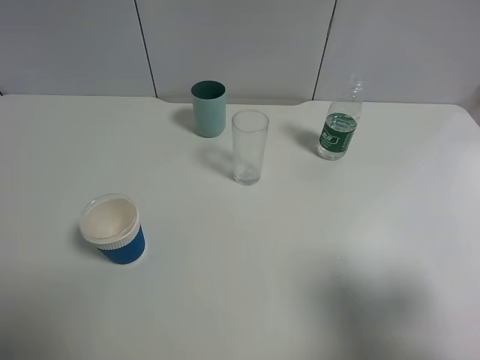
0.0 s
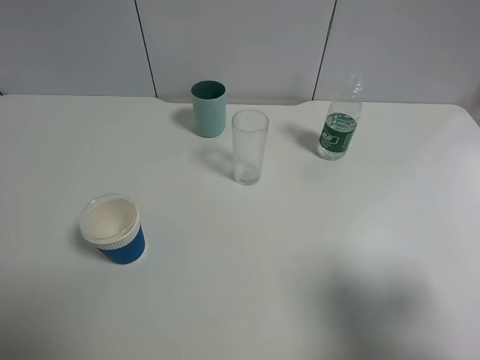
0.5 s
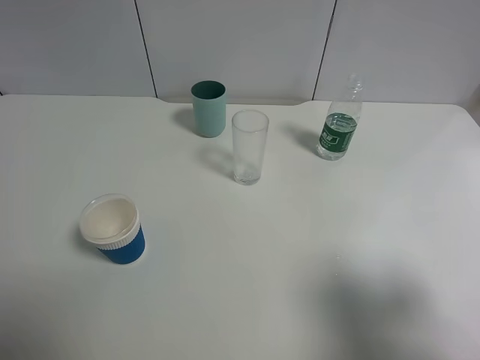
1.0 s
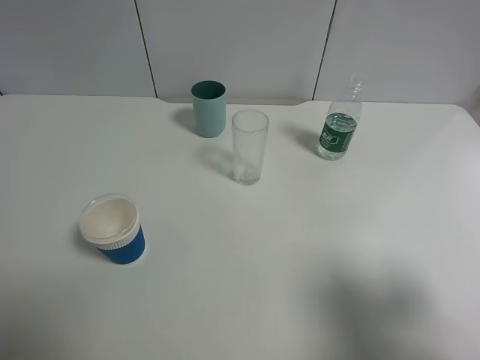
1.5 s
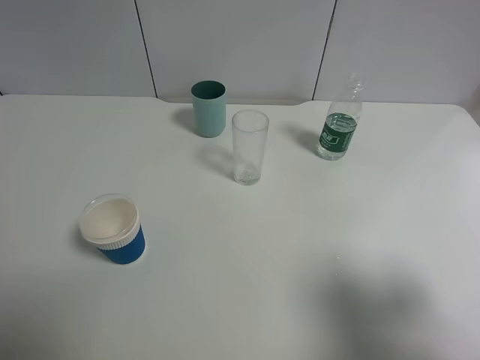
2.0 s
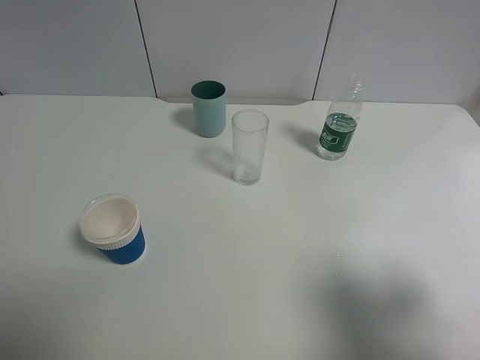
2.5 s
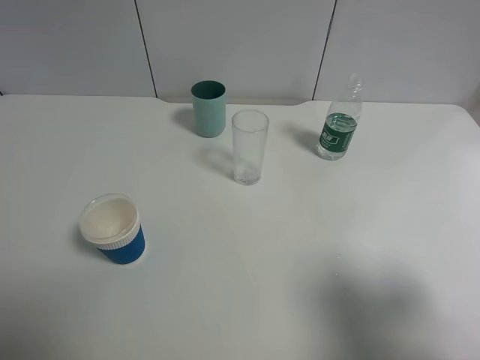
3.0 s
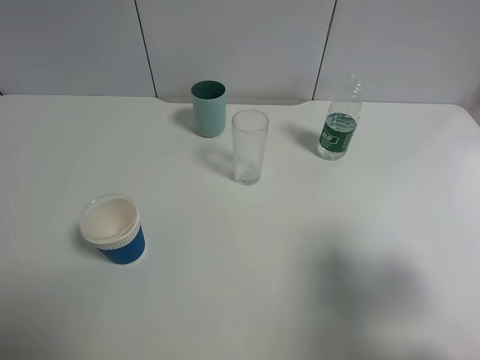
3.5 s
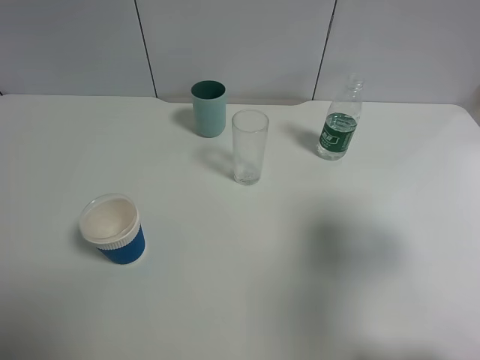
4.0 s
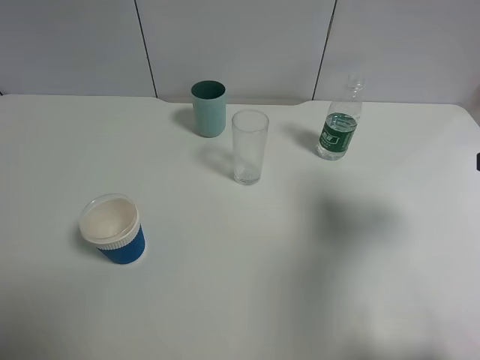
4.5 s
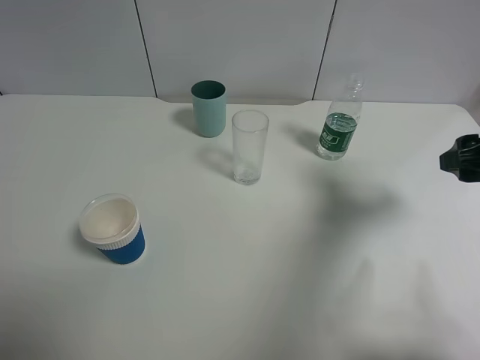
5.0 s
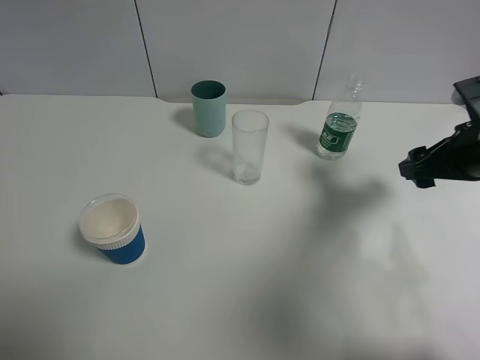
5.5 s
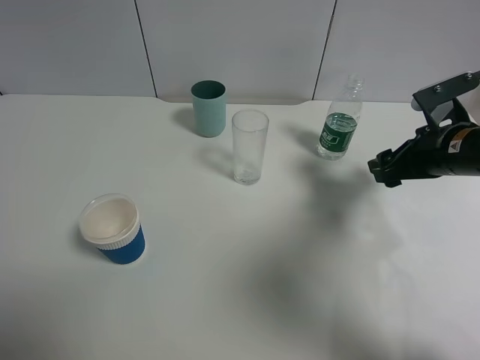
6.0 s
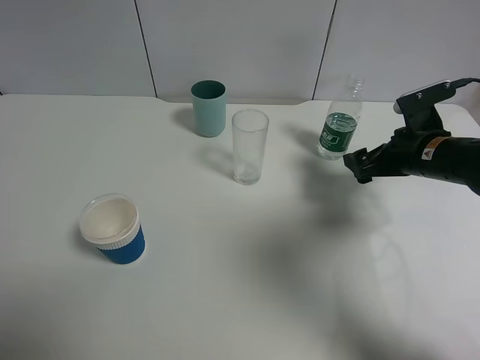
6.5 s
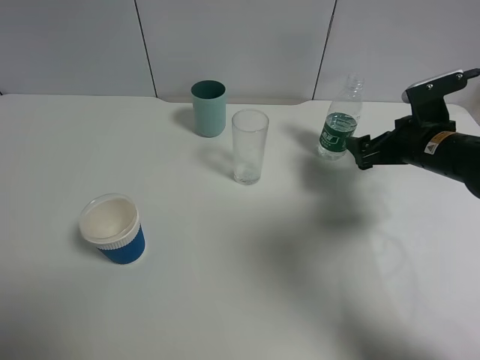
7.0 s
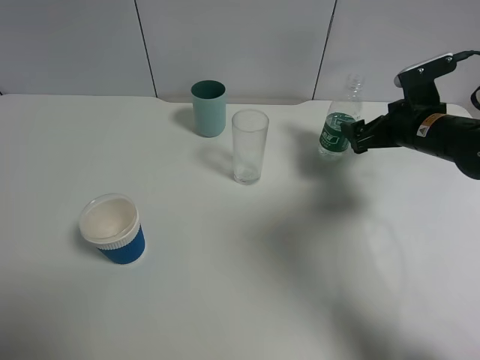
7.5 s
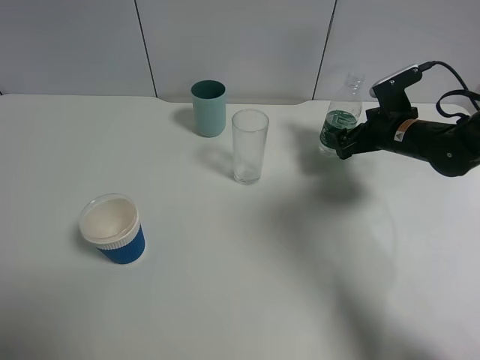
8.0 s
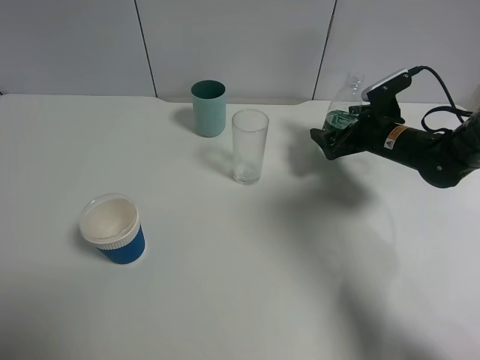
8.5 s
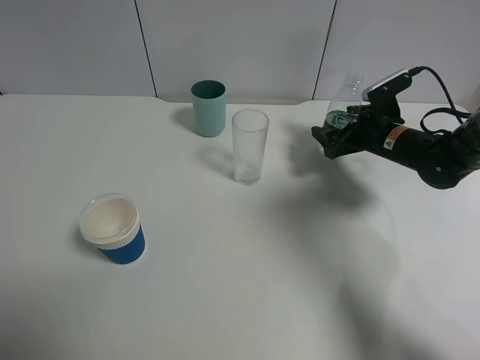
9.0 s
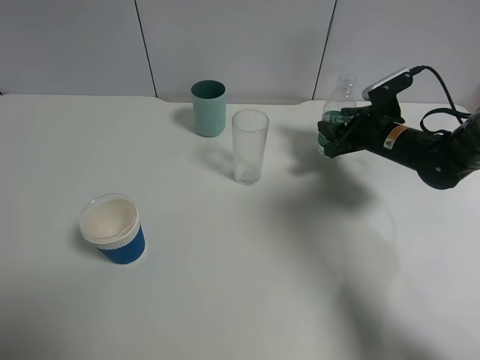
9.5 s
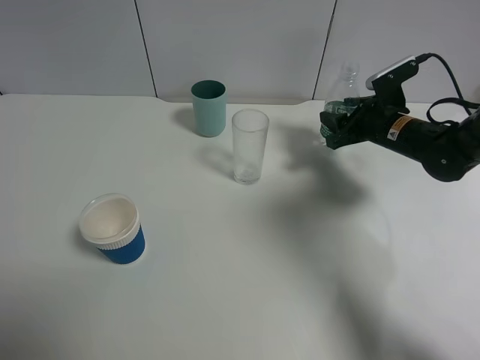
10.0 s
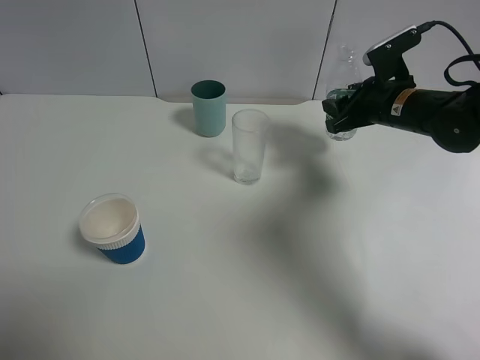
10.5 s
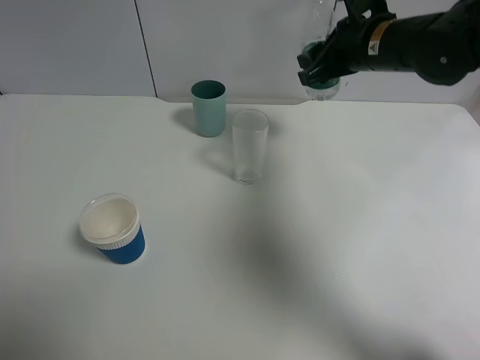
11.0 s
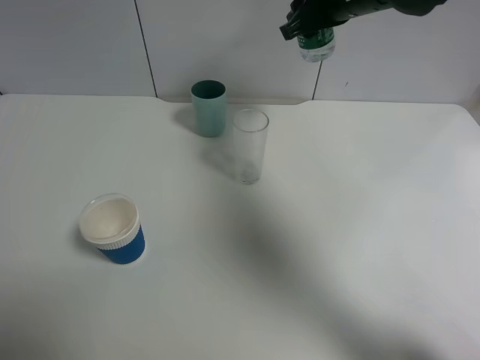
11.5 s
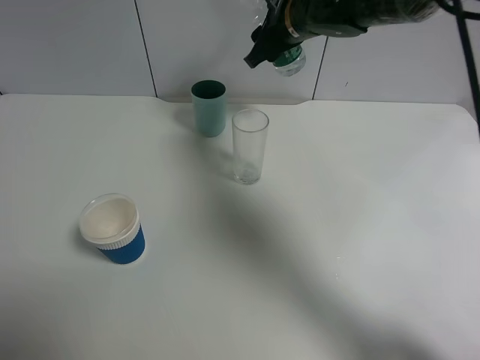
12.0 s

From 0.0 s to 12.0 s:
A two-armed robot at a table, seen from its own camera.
Task of the whole recording: use a gripper to hold the bottle of the drink and pour it into a random cup.
Step, from 0.0 s to 9.5 s: Grasp the mineral water bottle with the right gripper.
From 0.0 s to 2.0 s: Both grippers stay about where they are.
From 2.0 s to 4.0 s: The right gripper travels forward by approximately 10 cm.
From 4.0 s to 6.0 s: The right gripper goes about 20 cm forward and downward.
From 6.0 s to 8.0 s: The right gripper travels forward and downward by approximately 10 cm, and opens its fingers.
From 8.0 s to 10.0 s: The right gripper closes.
From 10.0 s to 12.0 s: The right gripper shifts roughly 20 cm to the left and upward.

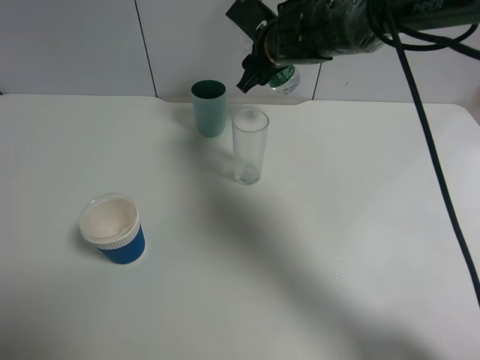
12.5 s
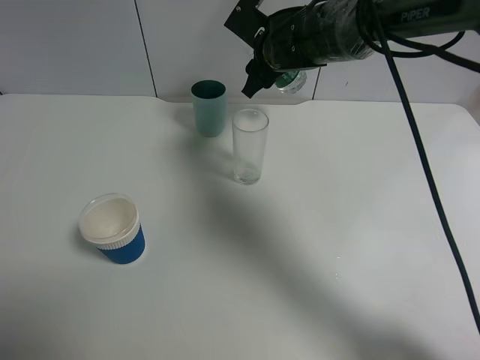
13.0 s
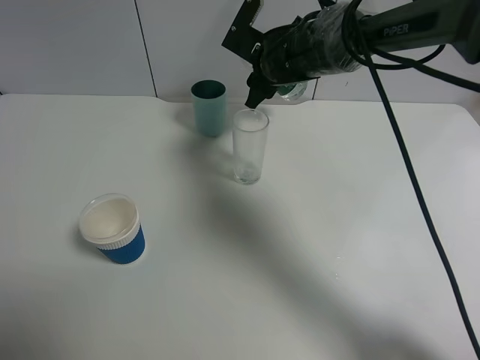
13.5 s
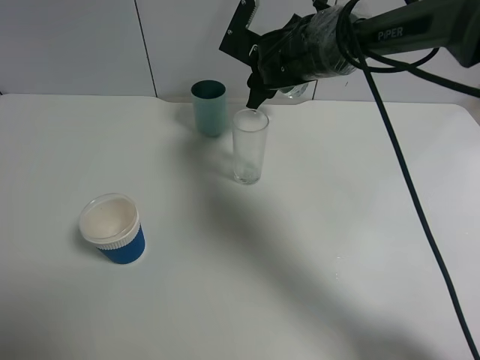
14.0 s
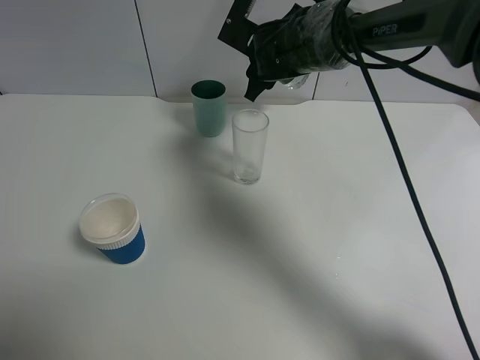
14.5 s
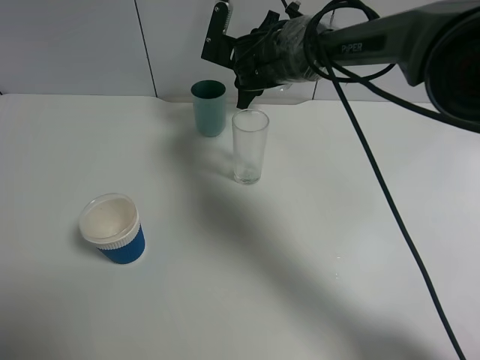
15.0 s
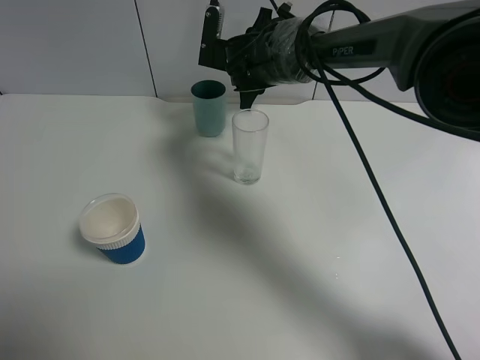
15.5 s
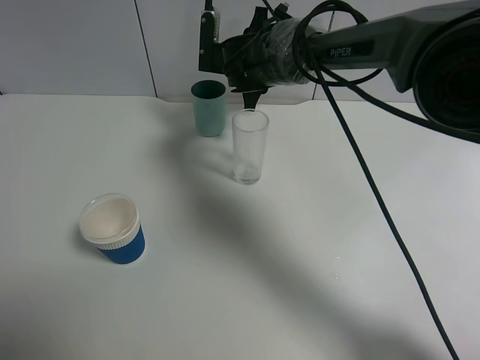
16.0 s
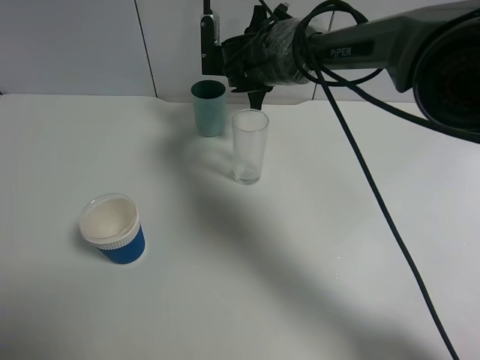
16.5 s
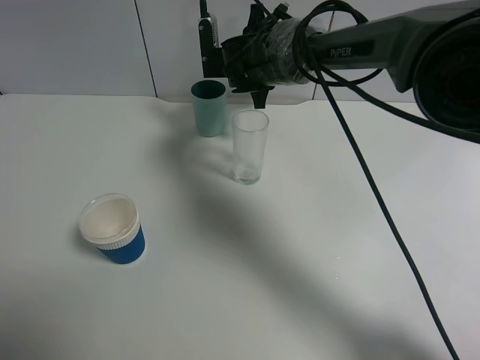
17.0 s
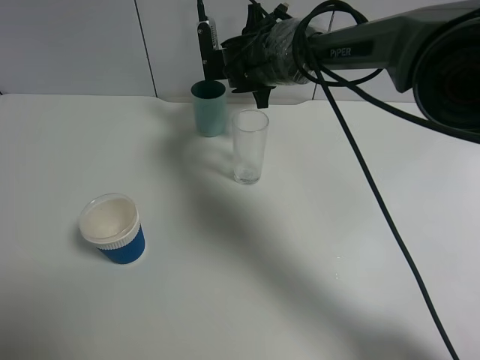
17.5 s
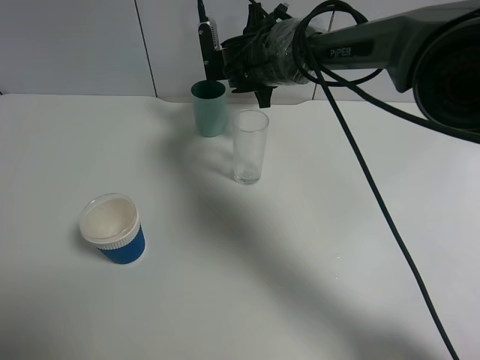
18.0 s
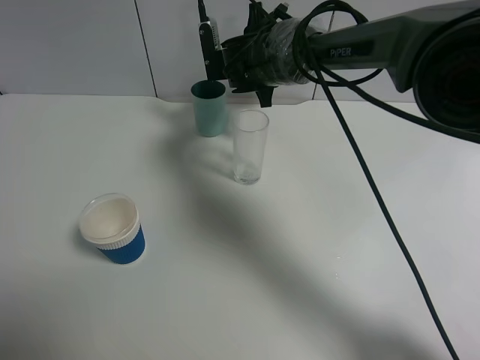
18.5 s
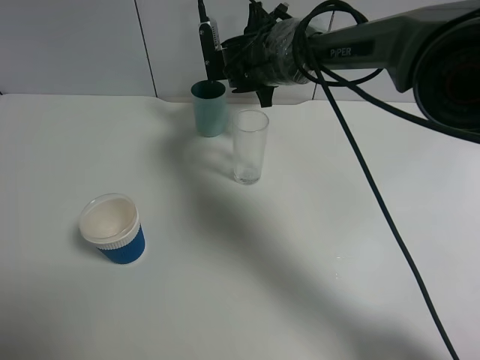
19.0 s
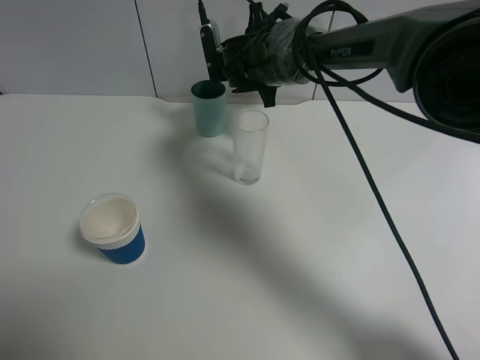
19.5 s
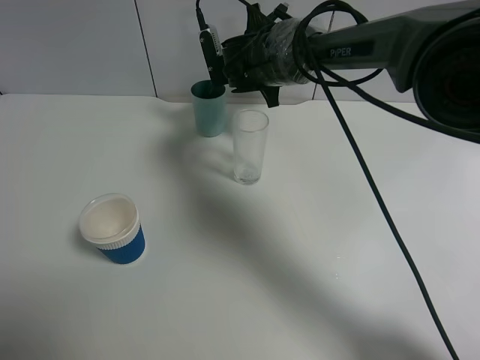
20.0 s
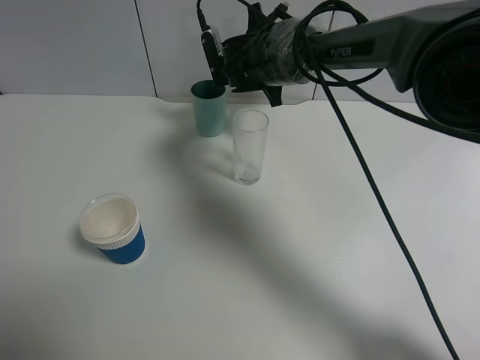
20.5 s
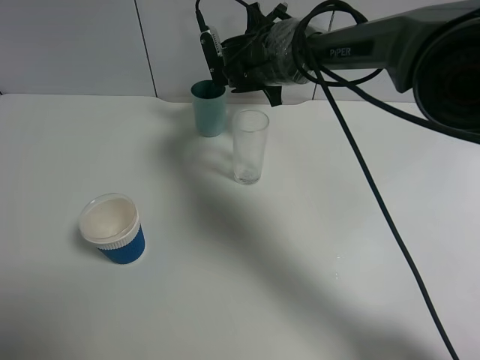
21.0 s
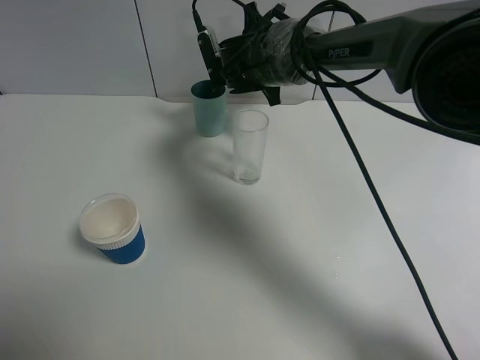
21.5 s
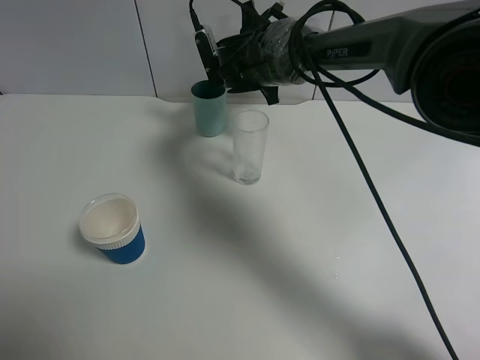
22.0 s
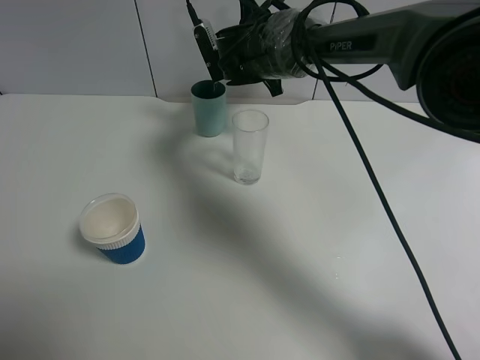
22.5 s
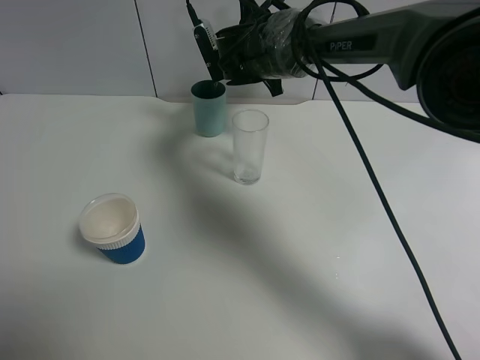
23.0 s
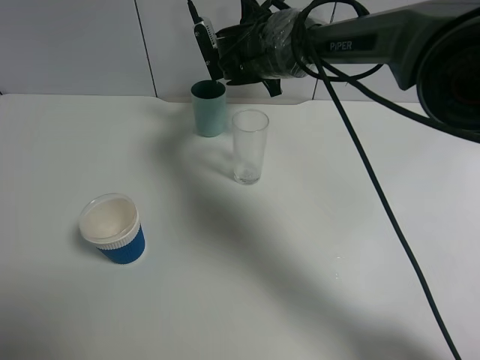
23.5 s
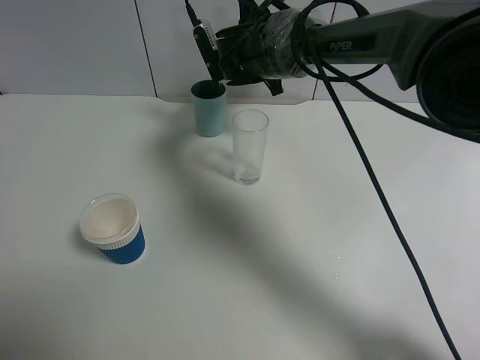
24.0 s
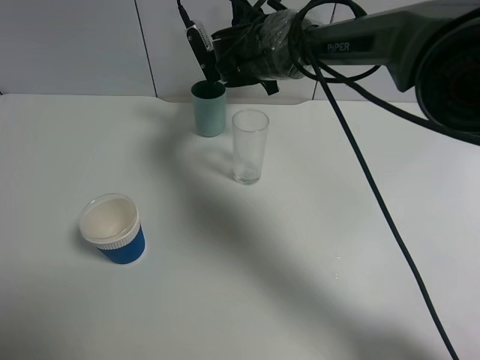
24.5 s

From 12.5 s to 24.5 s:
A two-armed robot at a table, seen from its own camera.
Task of the whole recording: use a gripper to hold the bottle of the drink and pour it into a random cup.
From 12.5 s to 14.5 s: The grippers move only a little.
From 20.5 s to 22.5 s: The grippers move only a little.
From 22.5 s to 24.5 s: The two grippers keep their place.

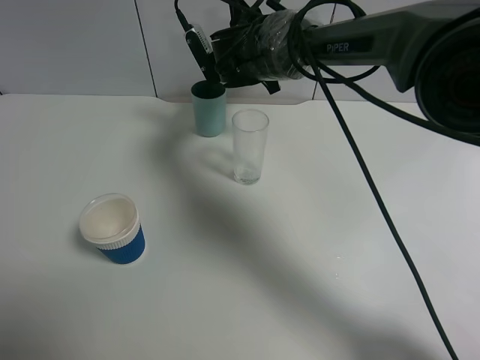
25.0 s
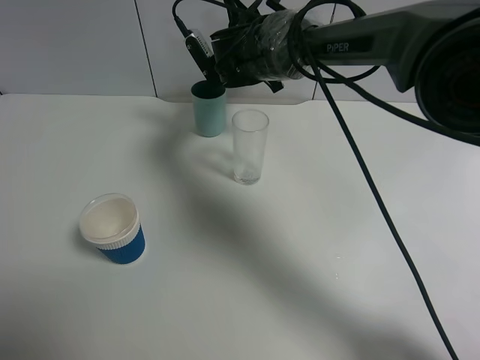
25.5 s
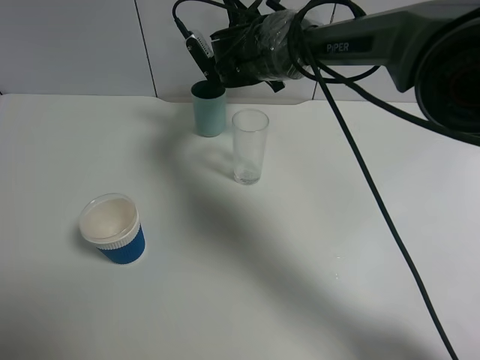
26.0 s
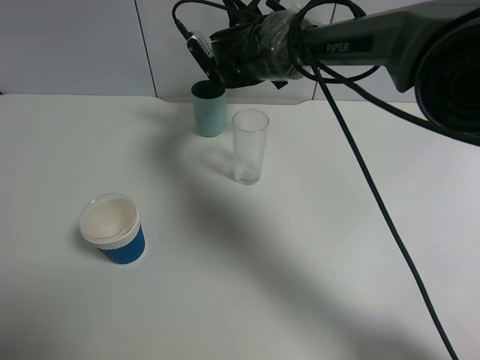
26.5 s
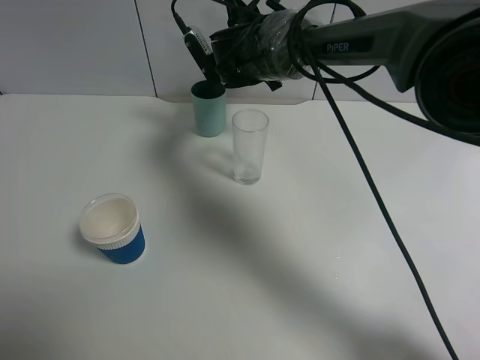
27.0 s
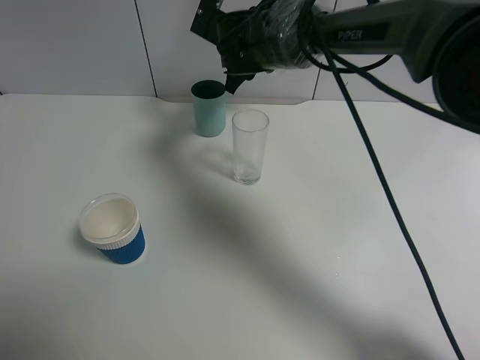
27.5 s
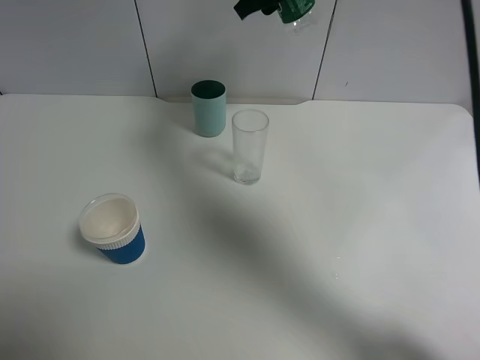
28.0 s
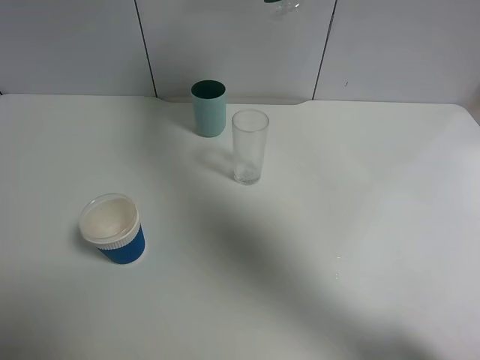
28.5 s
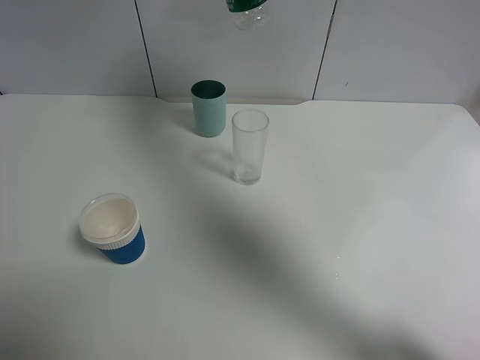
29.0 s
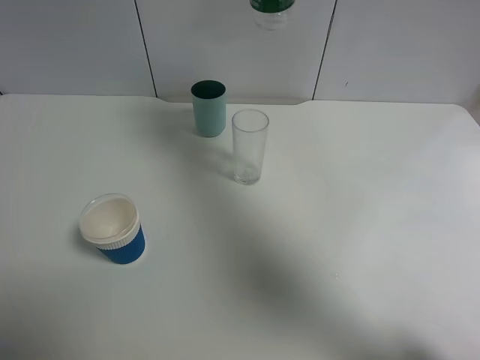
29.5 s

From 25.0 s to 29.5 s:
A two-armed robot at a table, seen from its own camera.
Task of the whole recording: use a gripper to hold the bottle of the drink and pour it into a random cup.
Step, from 25.0 s to 27.5 s: Pour the mineral water into the cyan cup with the right gripper.
From 27.0 s to 29.5 s: The right gripper travels upward, backward and to the right by some 20 cm.
